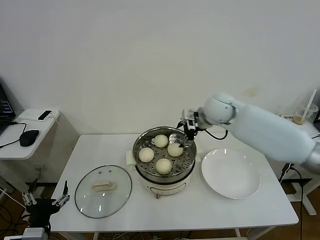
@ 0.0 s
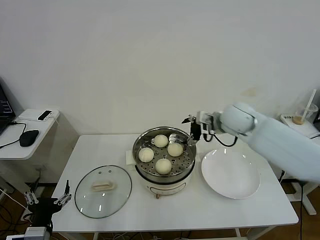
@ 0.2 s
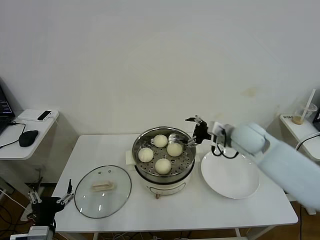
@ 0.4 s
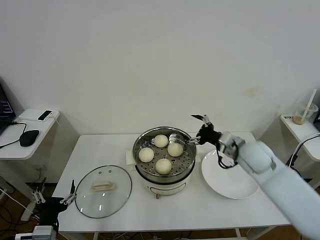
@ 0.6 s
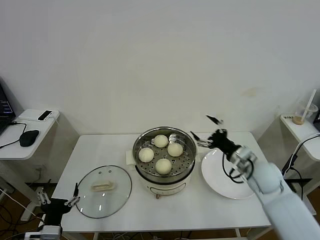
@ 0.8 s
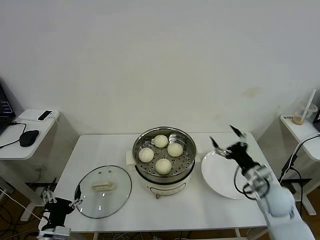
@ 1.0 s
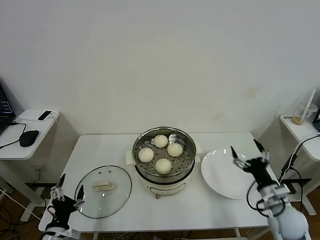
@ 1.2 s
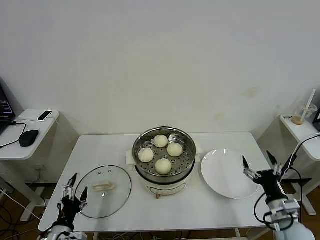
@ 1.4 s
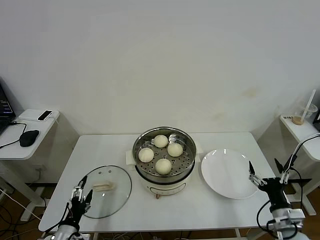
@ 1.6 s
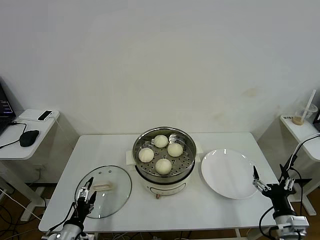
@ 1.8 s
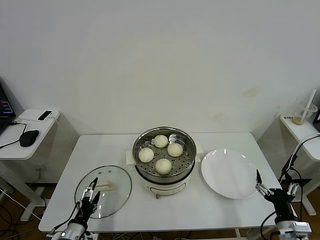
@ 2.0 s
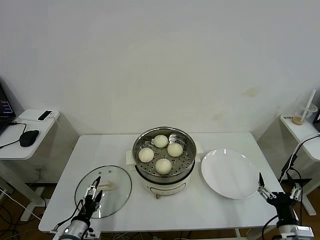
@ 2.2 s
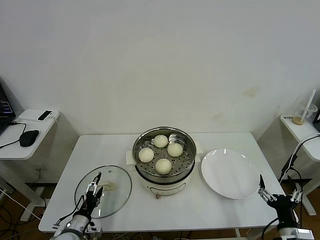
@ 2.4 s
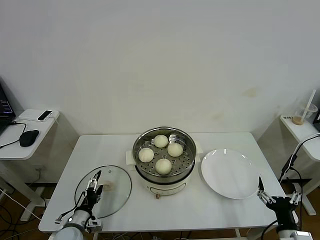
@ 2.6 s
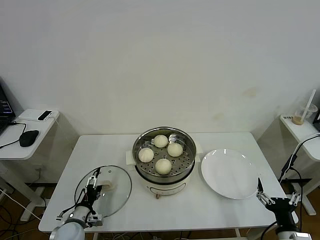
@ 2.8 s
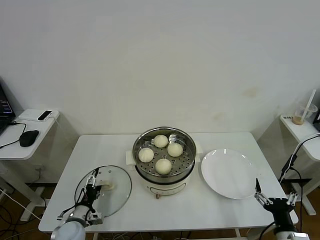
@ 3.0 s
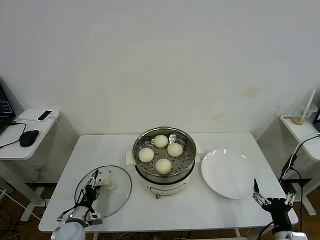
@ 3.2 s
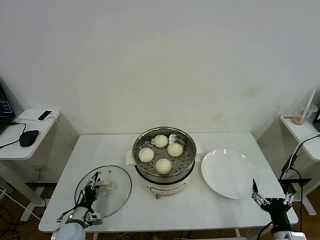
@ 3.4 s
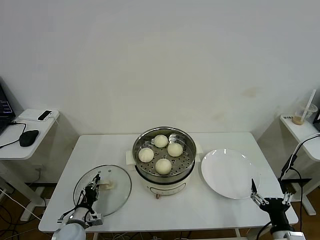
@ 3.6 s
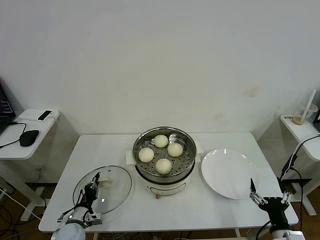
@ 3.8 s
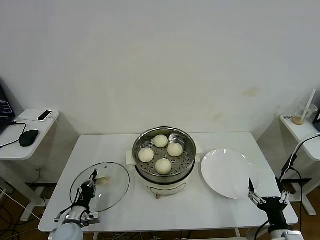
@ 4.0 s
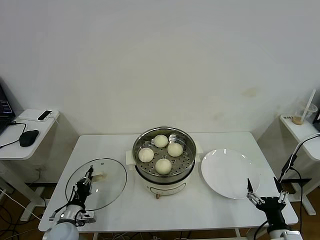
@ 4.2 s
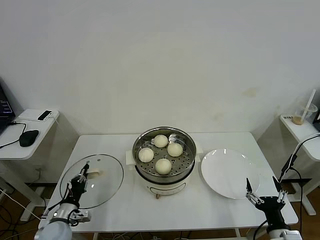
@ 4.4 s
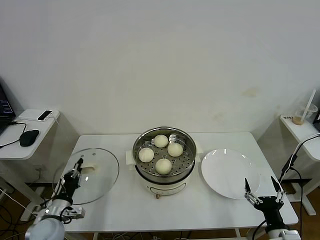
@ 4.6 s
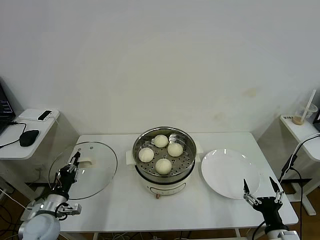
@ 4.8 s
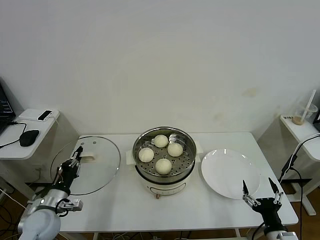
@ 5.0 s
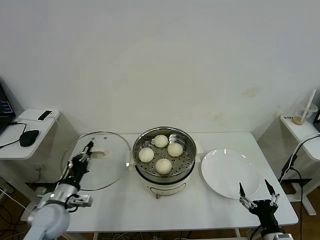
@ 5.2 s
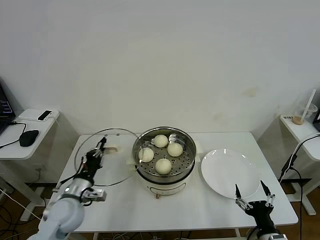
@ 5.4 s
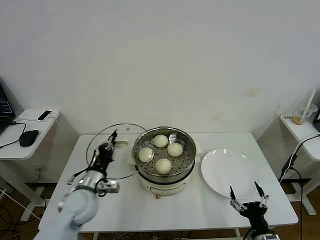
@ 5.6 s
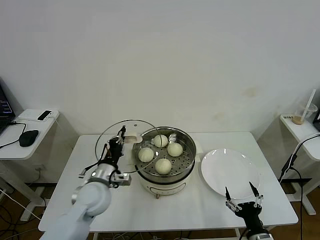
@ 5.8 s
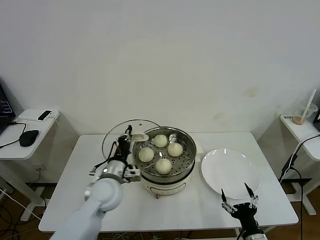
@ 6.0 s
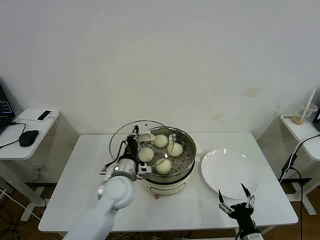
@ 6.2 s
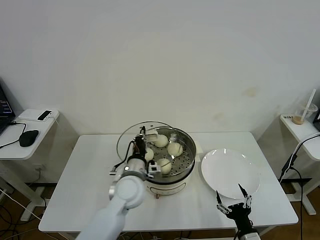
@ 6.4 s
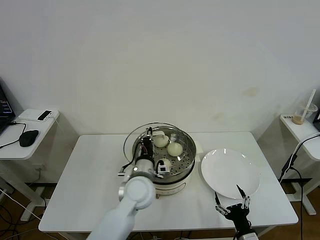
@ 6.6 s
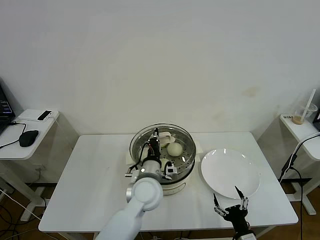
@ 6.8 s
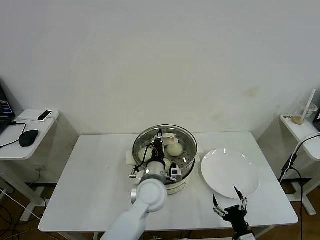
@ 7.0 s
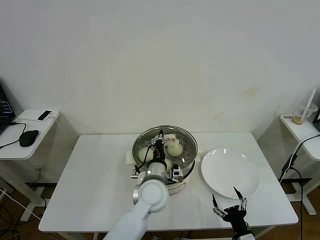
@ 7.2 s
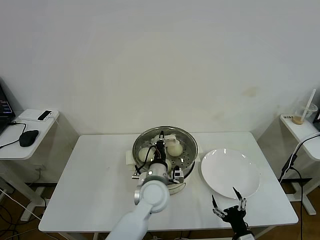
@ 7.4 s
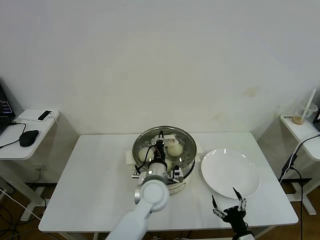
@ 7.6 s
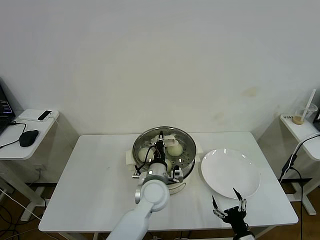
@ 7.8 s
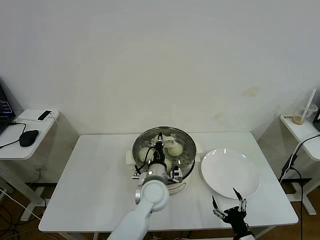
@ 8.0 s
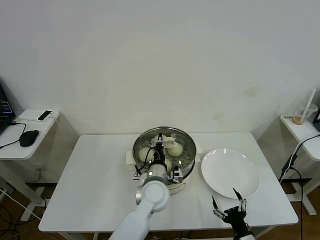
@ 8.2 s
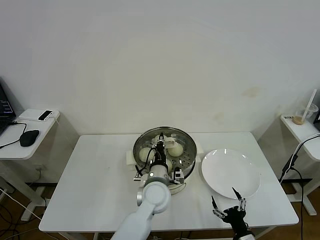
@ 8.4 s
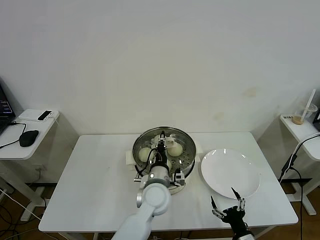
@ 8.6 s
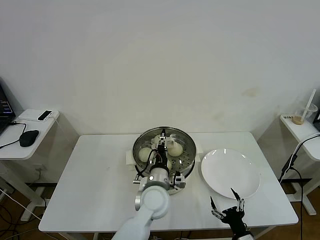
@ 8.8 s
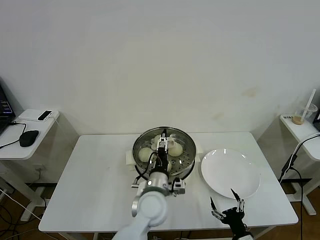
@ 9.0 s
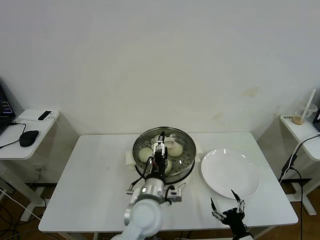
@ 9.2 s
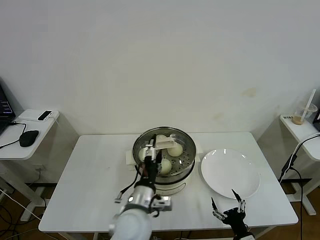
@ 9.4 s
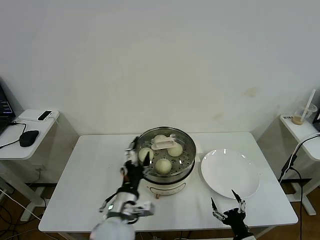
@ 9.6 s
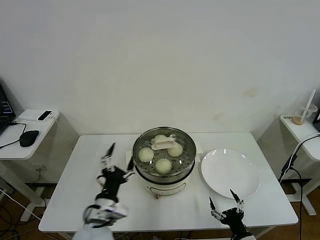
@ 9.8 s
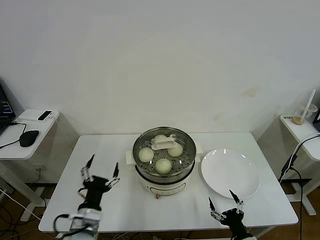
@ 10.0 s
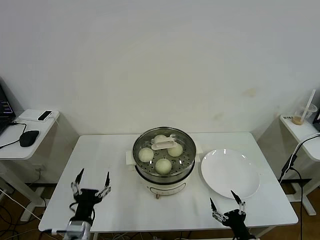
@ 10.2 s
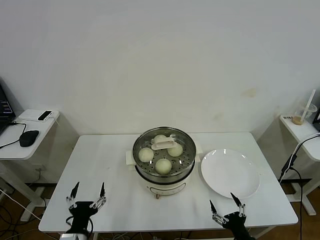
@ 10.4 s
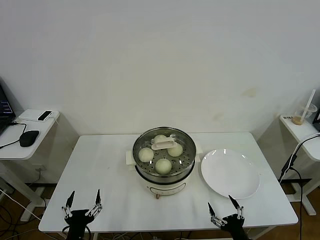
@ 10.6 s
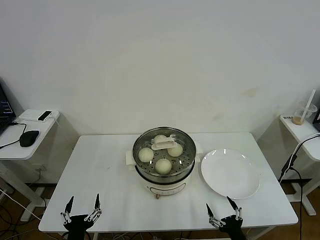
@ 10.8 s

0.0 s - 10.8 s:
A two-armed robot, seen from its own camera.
Task of the whole recording: take steamed baozi put them in steamer then cover it.
Step, 0.0 s - 4.0 s: Grasp the pot lid with left gripper.
Step, 4.2 s - 9.2 s: Place the pot lid on the steamer with left gripper.
0.0 s - 1.6 s: The left gripper is displaced downward by approximately 10 cm. Meanwhile the right gripper is displaced backward, downward and to the right by roughly 40 cm.
1.6 s - 3.0 s: The left gripper goes some 10 cm forward and downward; the right gripper heads backward, covering approximately 5 cm.
3.0 s - 4.6 s: The left gripper shifts roughly 5 cm upward, and closes its fingers.
4.6 s - 6.2 s: The left gripper is displaced to the right, upward and forward by about 25 cm. The right gripper goes roughly 5 cm to the left.
6.2 s - 7.8 s: The left gripper goes about 10 cm to the right.
7.8 s - 9.2 s: The left gripper goes some 5 cm backward, and opens.
9.2 s - 10.8 s: The left gripper shifts approximately 30 cm to the left, backward and downward.
